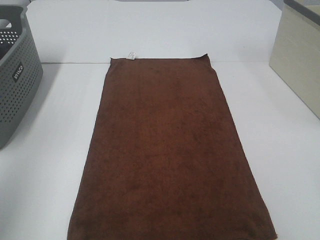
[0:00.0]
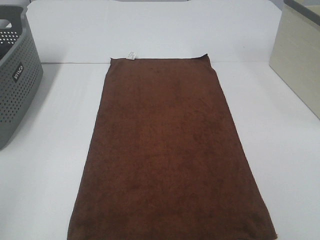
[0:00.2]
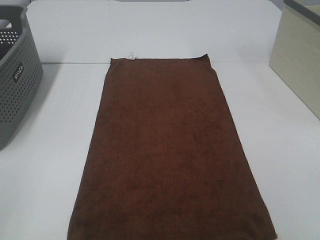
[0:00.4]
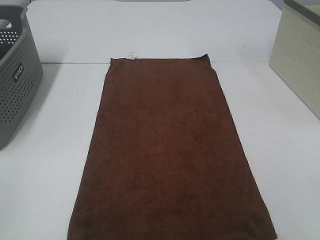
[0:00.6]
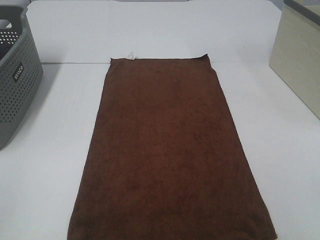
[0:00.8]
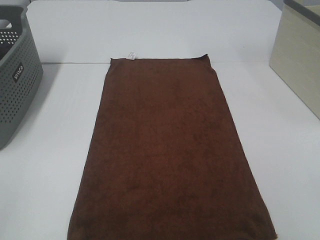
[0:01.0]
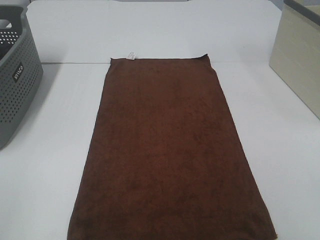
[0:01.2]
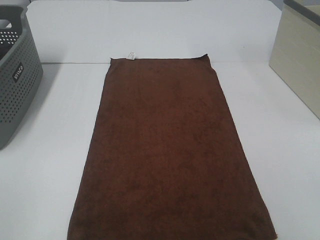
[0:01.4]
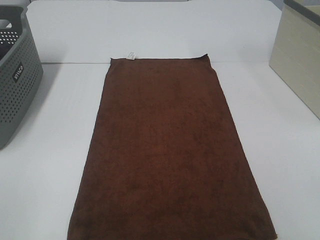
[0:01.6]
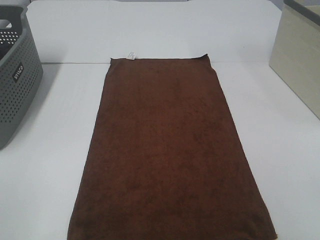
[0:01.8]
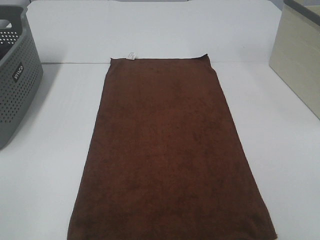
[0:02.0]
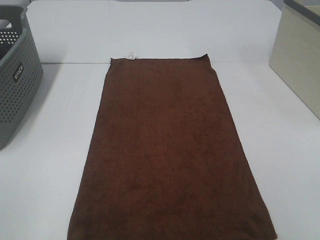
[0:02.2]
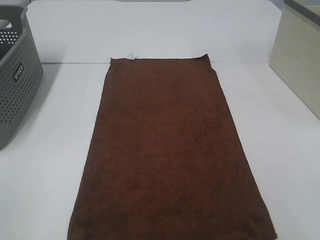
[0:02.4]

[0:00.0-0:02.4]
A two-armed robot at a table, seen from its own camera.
Task of the whole recording: Remove the towel and place it.
0:00.0 to 0:01.2: The left gripper travels backward and downward by approximately 15 cm.
0:01.2 to 0:02.4: Both grippers stay about where they are.

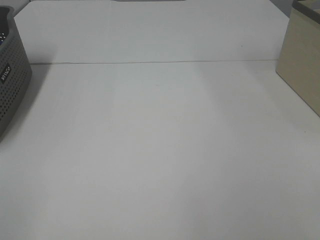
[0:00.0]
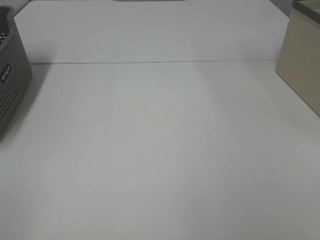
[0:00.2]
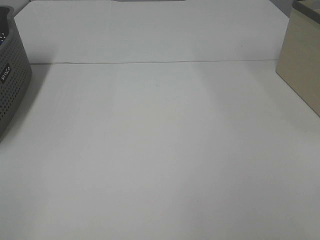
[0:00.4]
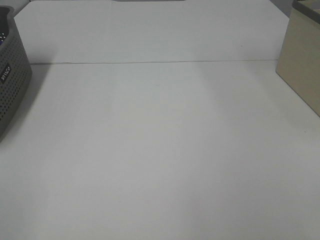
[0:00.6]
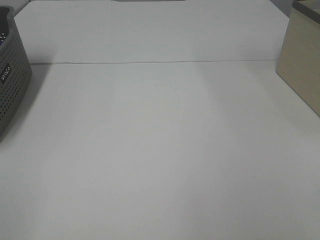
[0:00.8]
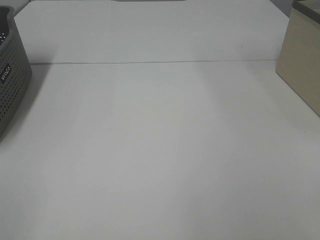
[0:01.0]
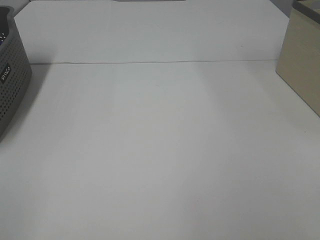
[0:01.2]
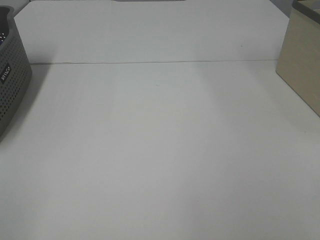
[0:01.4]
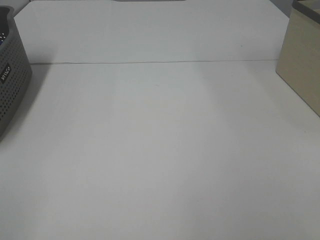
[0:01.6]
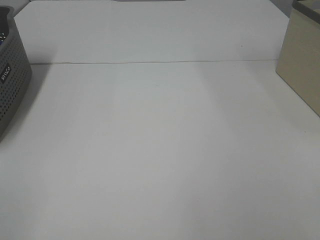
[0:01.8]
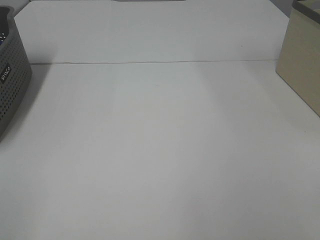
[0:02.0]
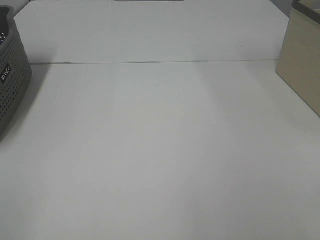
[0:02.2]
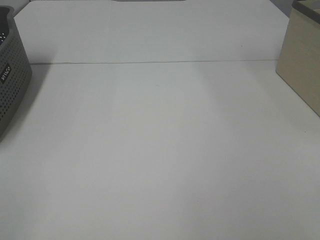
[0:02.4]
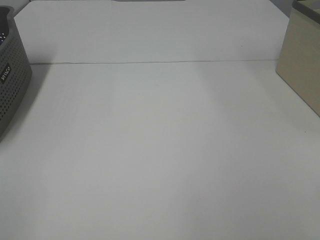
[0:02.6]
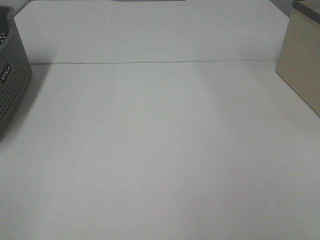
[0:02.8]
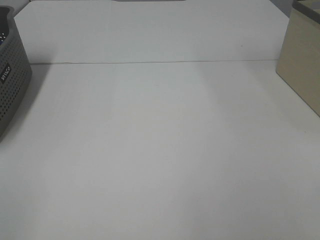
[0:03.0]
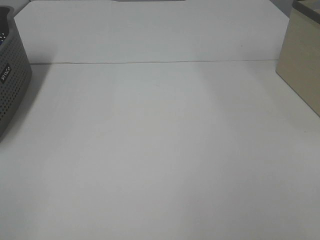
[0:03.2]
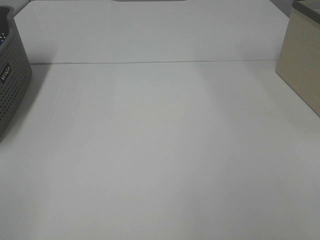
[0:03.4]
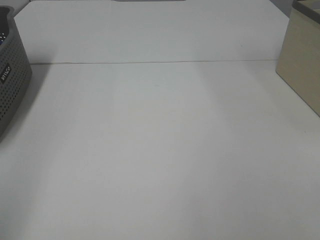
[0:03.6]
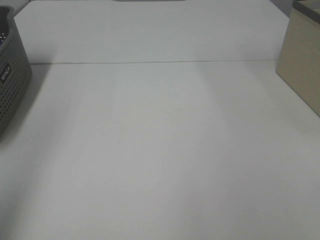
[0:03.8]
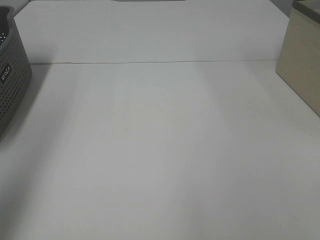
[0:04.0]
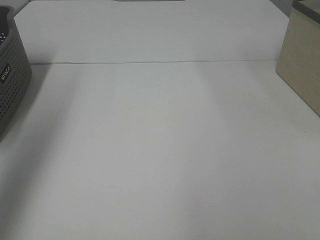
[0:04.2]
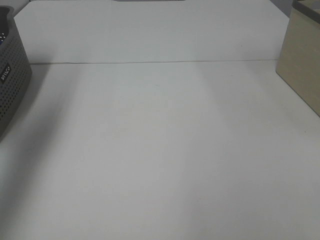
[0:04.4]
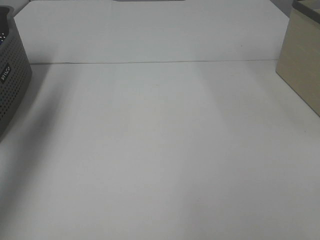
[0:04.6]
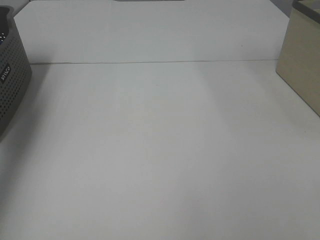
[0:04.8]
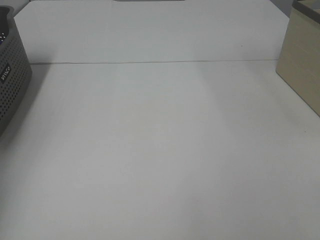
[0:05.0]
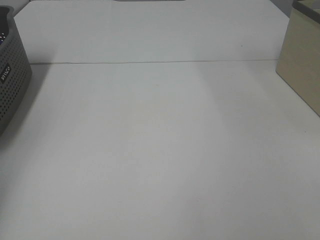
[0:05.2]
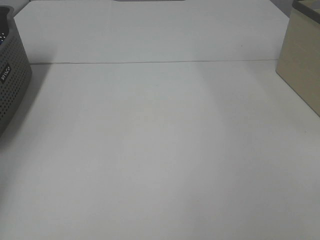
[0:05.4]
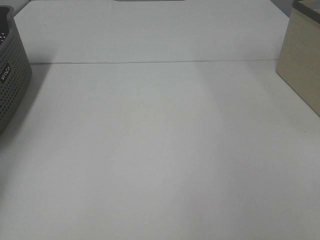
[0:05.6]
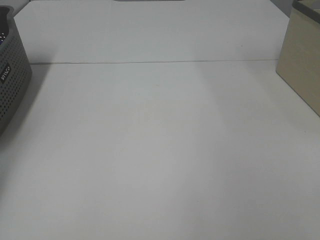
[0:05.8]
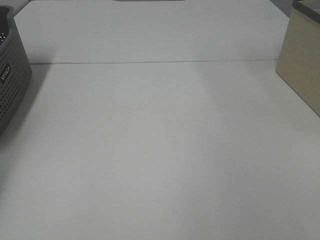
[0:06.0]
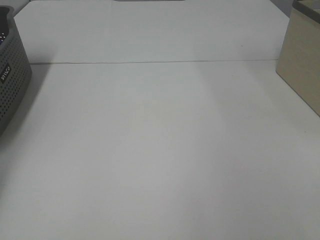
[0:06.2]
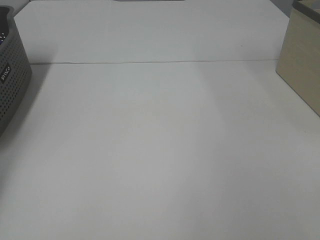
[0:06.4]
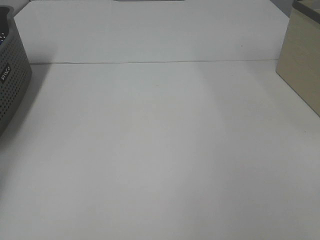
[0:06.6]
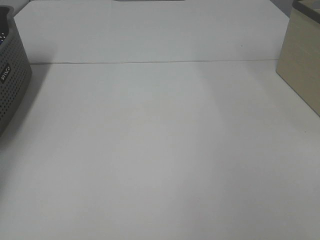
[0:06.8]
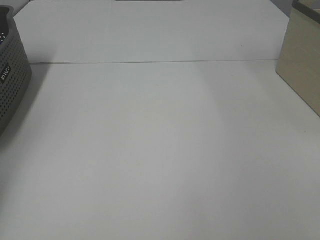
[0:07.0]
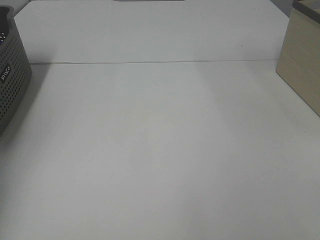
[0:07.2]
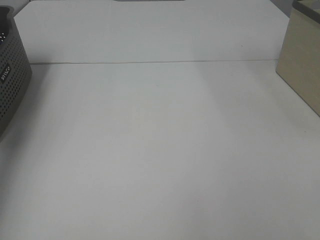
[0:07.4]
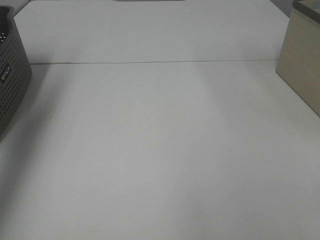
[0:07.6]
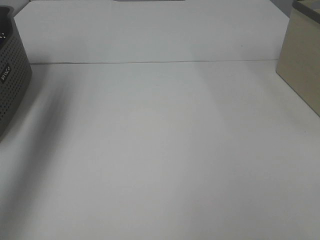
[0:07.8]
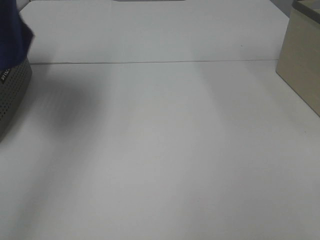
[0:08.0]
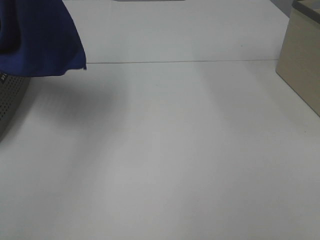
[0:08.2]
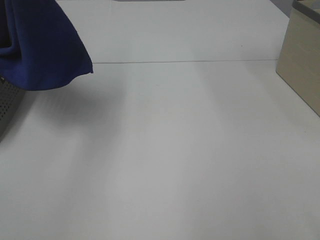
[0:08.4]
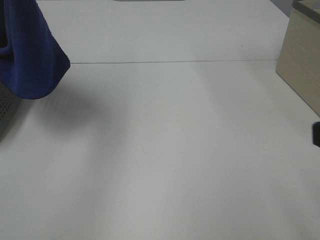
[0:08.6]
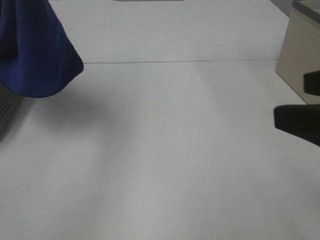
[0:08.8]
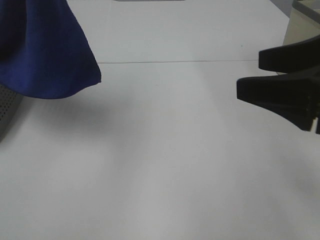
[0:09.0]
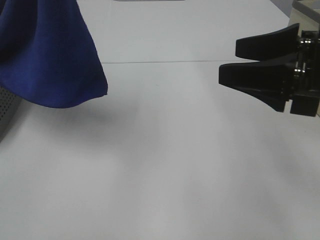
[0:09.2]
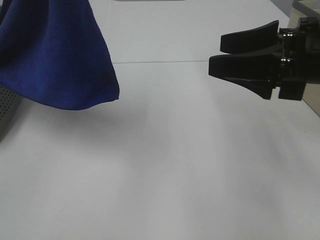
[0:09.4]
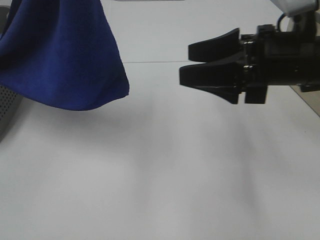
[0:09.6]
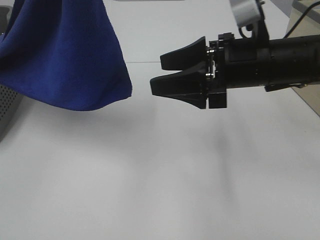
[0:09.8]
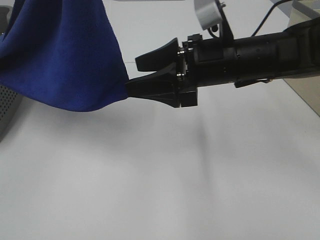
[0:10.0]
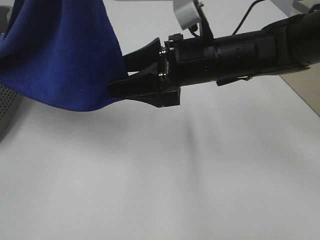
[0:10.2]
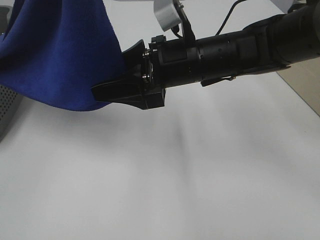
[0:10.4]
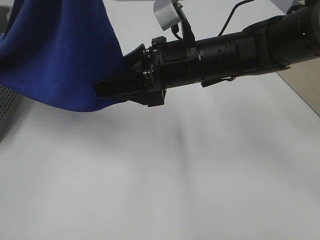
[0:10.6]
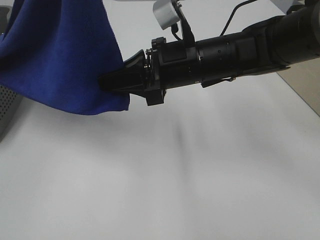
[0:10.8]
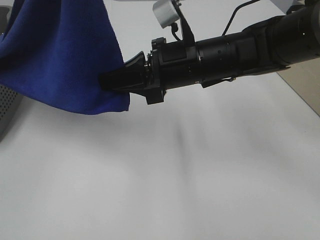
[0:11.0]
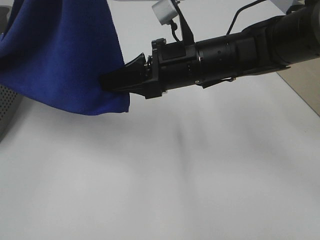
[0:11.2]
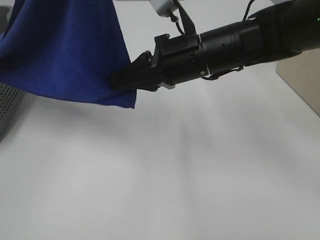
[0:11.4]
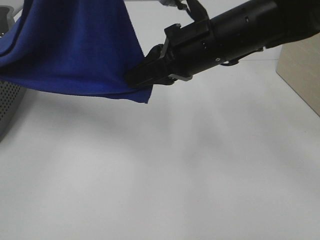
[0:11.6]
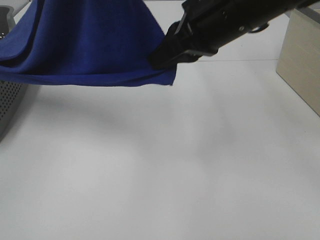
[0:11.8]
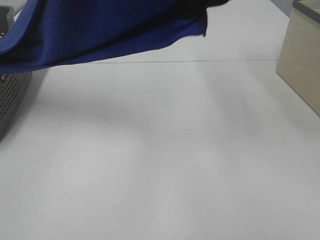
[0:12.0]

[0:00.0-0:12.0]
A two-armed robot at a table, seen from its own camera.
Task of the whole recording: Remove the towel and place it.
Step, 0:08.2 to 0:11.0: Right hand: grab a corner of the blue towel and straighten it.
0:00.0 to 0:03.0: Neither gripper changes place.
0:03.0 to 0:04.4: The left gripper is displaced forward and upward by some 35 cm.
0:04.4 to 0:06.0: The left gripper is displaced downward, forward and to the left by about 30 cm.
0:06.0 to 0:07.6: The left gripper goes some 30 cm upward and to the right, and closes.
0:07.6 to 0:09.0: The left gripper is displaced to the right and backward by approximately 25 cm, while the right gripper shifts about 20 cm forward.
0:09.0 to 0:10.4: The right gripper moves to the left, forward and downward, some 20 cm.
0:10.4 to 0:12.0: The right gripper is displaced upward by roughly 15 cm, and closes up.

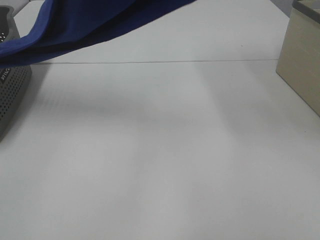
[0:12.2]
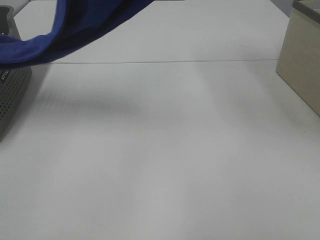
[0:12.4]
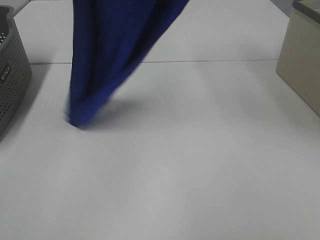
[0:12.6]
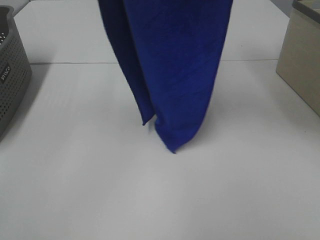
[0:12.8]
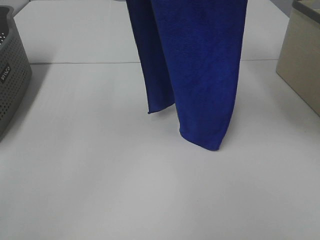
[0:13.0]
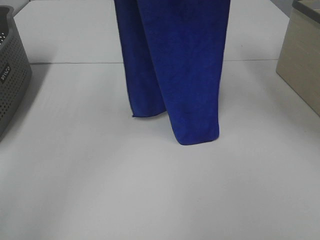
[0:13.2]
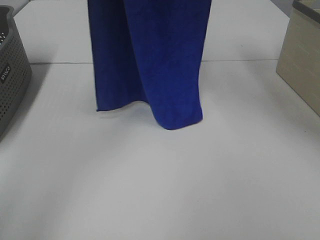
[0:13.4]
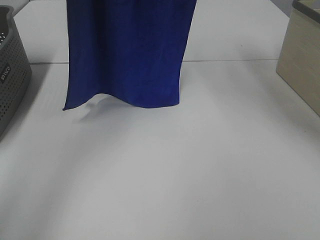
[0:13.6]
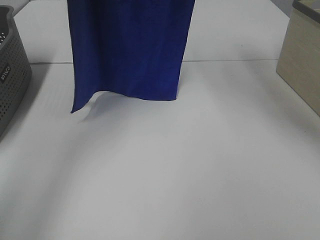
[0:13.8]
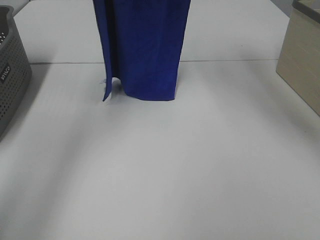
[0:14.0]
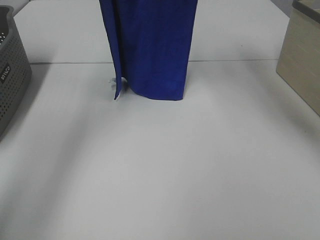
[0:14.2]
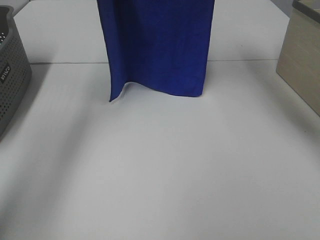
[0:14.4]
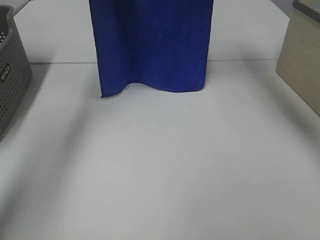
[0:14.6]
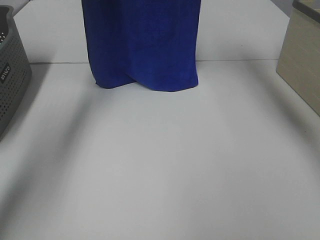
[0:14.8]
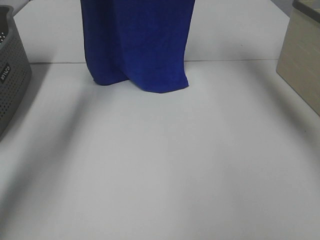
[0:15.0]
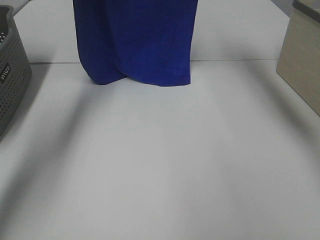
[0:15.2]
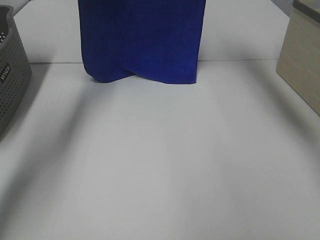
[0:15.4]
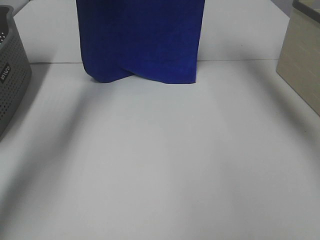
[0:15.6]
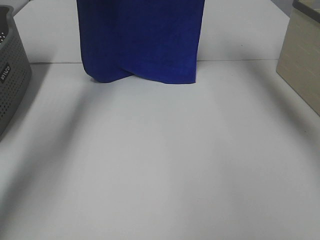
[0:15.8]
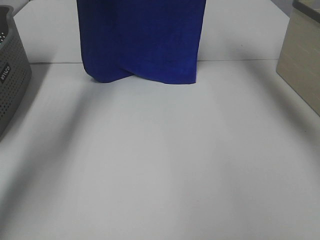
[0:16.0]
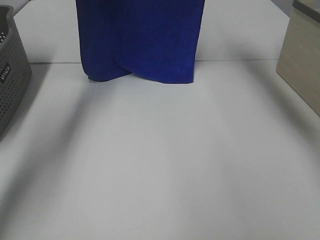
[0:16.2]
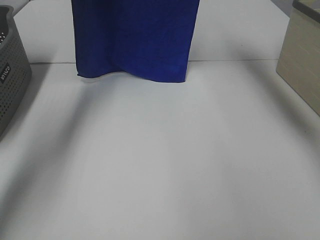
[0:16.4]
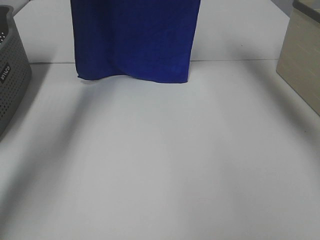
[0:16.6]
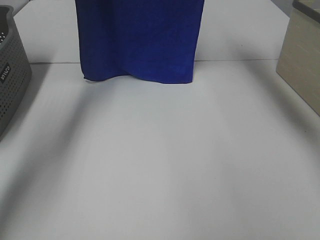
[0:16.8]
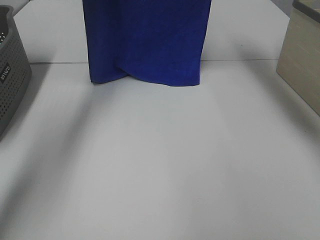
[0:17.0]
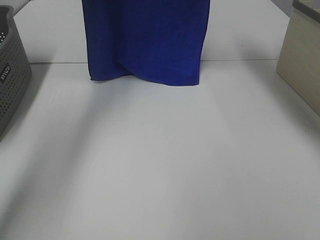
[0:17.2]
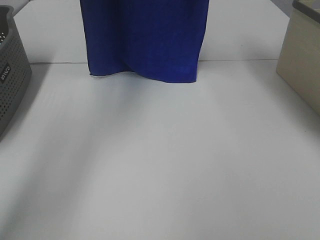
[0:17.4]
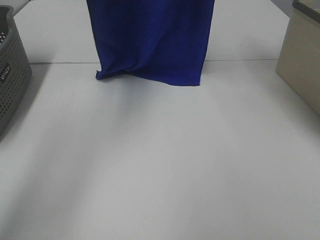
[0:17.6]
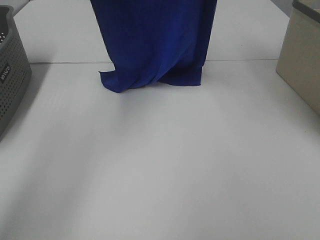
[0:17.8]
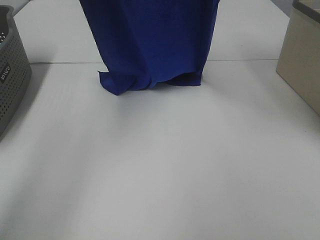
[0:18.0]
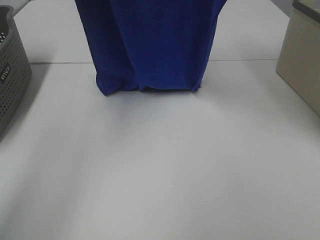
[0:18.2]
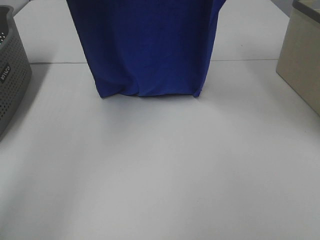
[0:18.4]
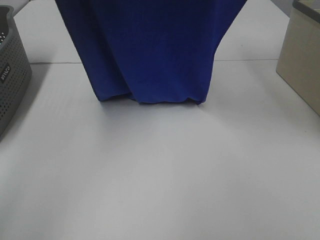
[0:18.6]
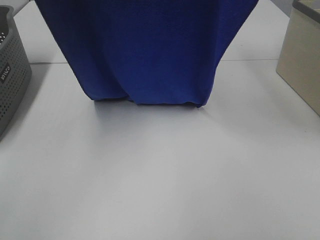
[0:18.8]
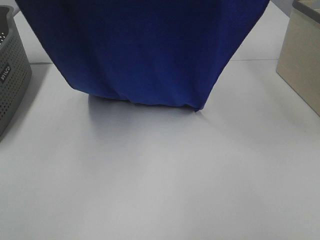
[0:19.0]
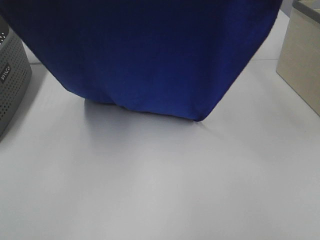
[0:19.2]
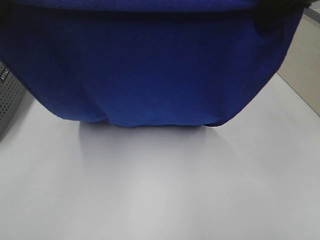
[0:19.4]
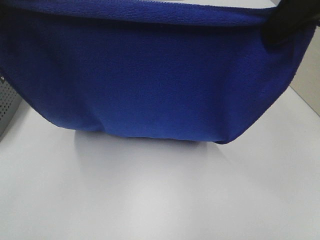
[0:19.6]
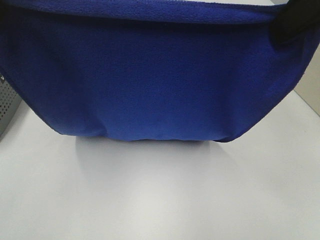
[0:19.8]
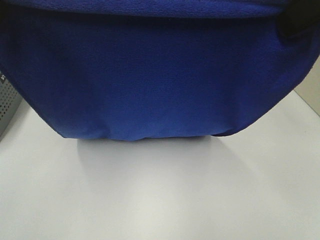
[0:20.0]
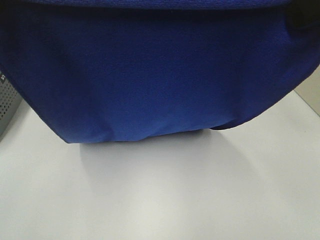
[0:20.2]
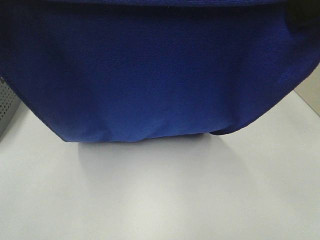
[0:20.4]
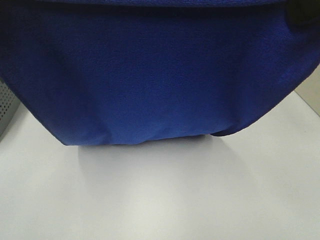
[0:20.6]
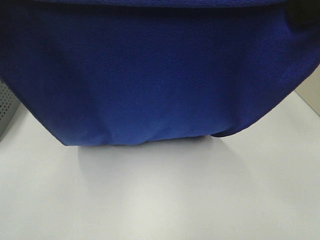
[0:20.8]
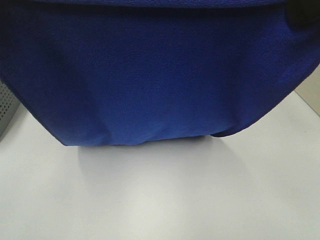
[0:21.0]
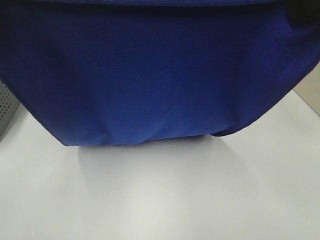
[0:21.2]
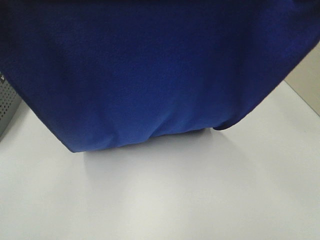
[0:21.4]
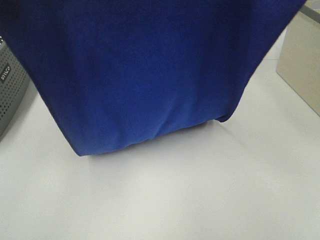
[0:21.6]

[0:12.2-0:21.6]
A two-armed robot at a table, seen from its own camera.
Task of the whole recording: Remove the towel and place it.
0:12.2 to 0:13.8: The left gripper moves forward, some 15 cm. Meanwhile the right gripper travels forward by roughly 10 cm.
0:13.8 to 0:15.4: The right gripper moves forward, roughly 10 cm; the left gripper travels forward and downward by about 15 cm.
0:17.0 to 0:18.4: Both grippers move backward, some 15 cm.
0:18.4 to 0:20.0: The left gripper is displaced backward by roughly 20 cm. Meanwhile the right gripper goes about 15 cm backward and downward.
0:20.0 to 0:21.6: The right gripper goes some 5 cm upward.
